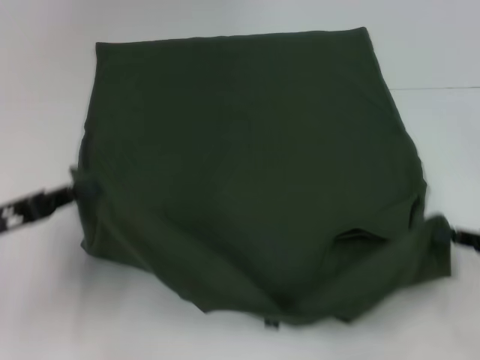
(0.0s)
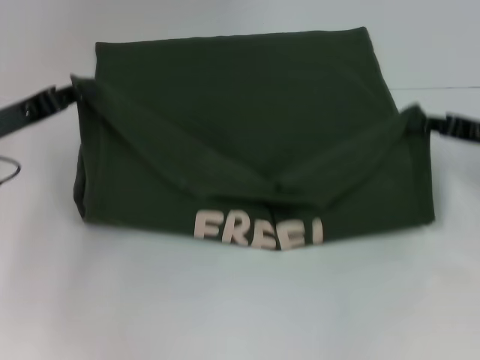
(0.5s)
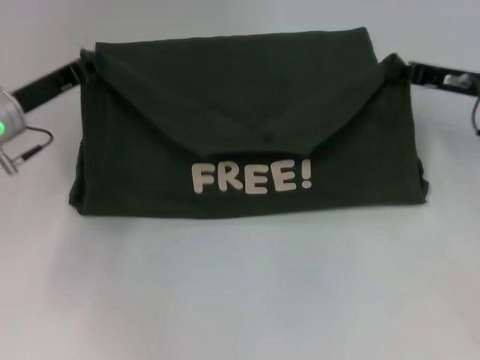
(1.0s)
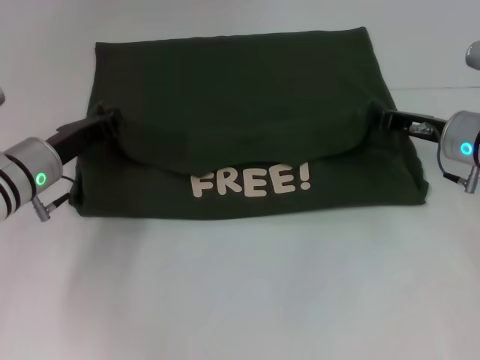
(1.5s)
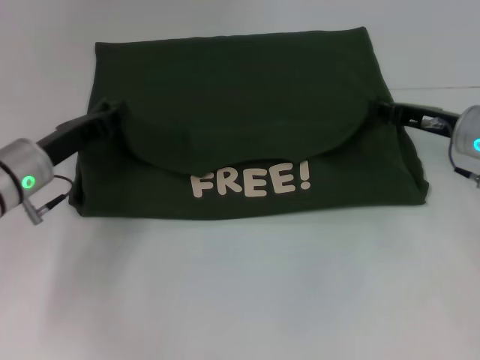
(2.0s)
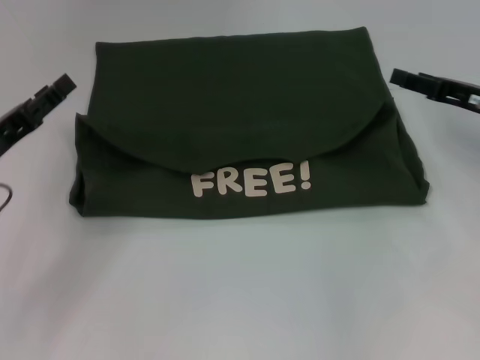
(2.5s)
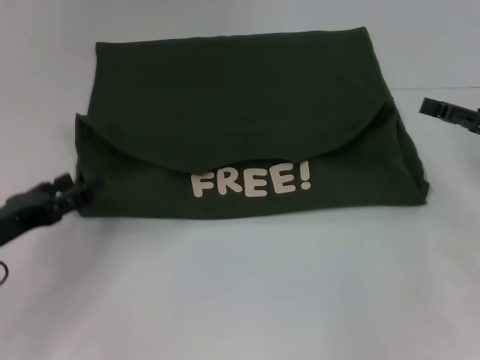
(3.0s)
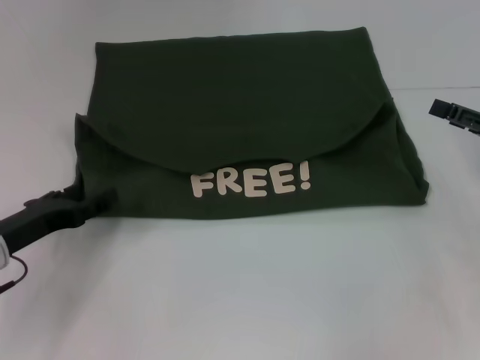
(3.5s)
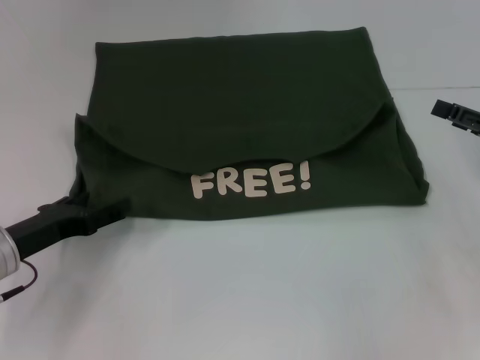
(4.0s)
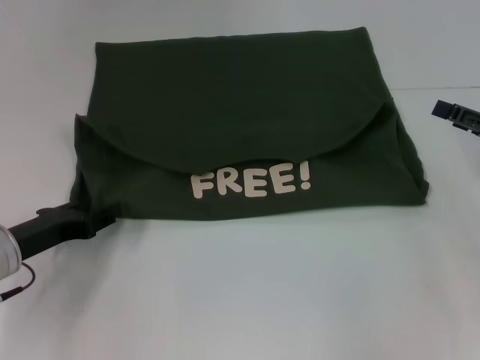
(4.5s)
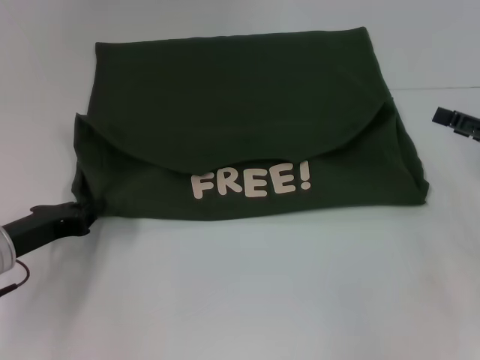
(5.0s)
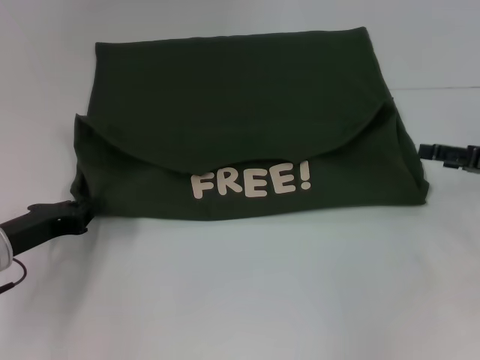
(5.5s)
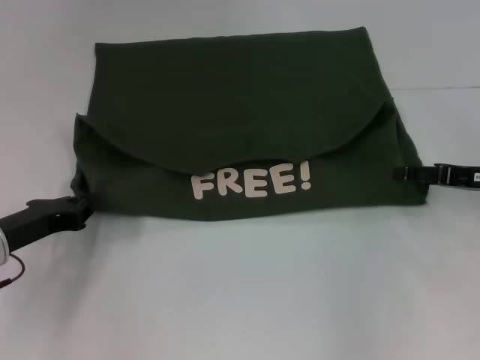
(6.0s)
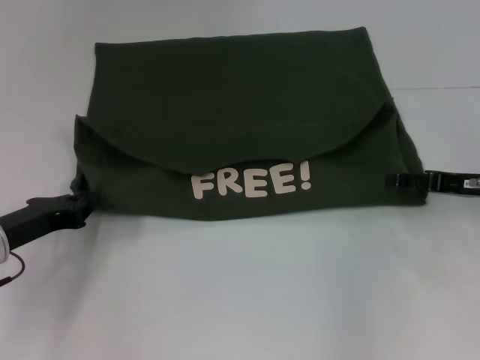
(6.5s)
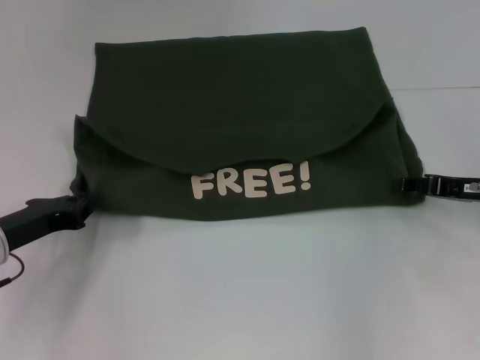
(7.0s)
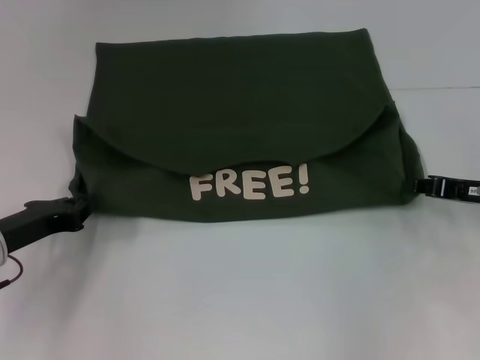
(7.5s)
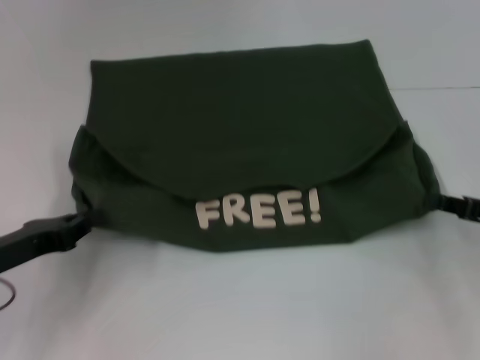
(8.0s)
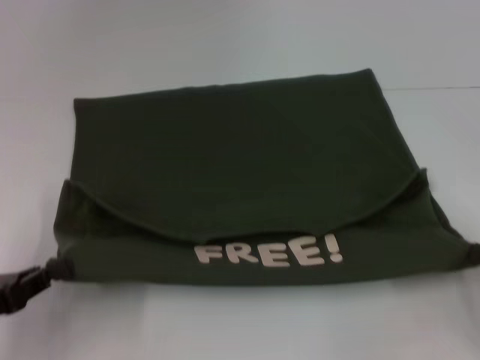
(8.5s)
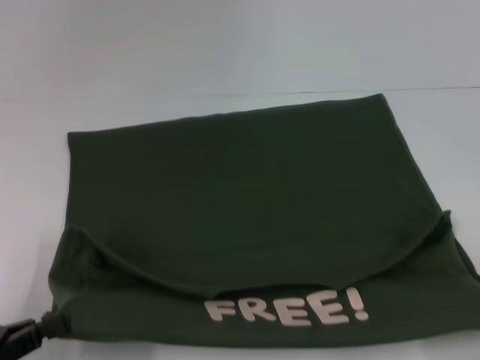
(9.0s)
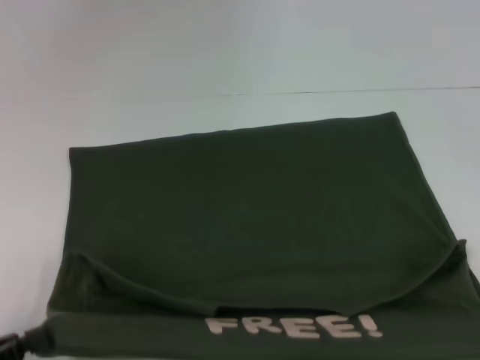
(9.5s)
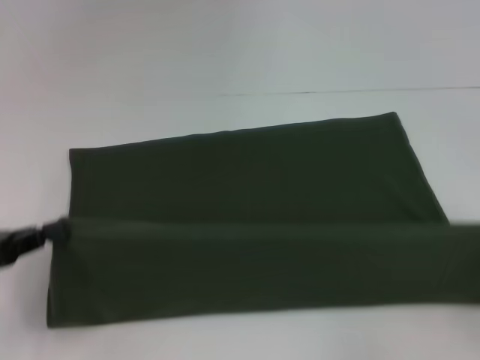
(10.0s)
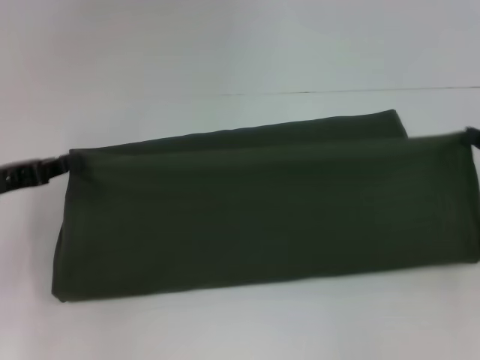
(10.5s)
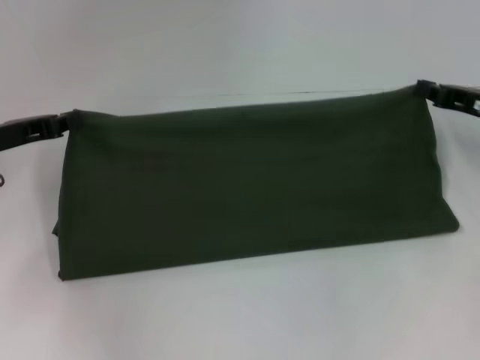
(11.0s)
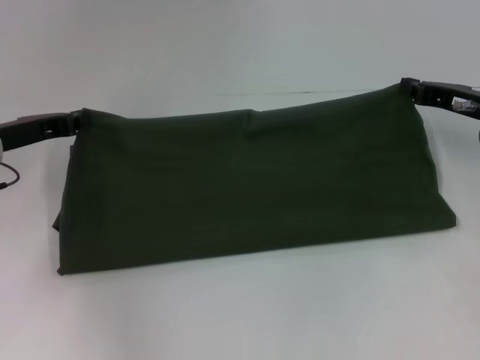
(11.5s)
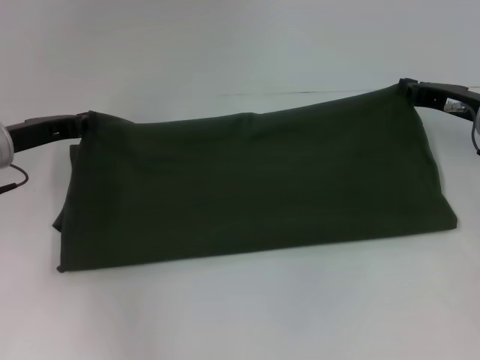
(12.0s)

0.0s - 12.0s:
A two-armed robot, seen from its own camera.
Step, 0.0s - 2.0s: Fold the clothes with your left hand.
Step, 0.0s - 2.0s: Fold the clothes with your right hand.
Step, 2.5s - 8.5s: Pull the clothes with your left hand.
Step, 2.5s - 8.5s: Pull the clothes with your right hand.
0.0s - 2.0s: The right gripper shifts some 20 cm forward and to the left. The left gripper is displaced forward and to the right by approximately 15 cm.
2.0s - 4.0s: The left gripper travels backward by some 5 cm, and opens. Meanwhile the right gripper heads to the right and backward, covering roughly 10 cm, and opens its fingers.
4.0s - 6.0s: The left gripper closes its fingers.
6.0s - 8.0s: The right gripper shifts about 5 cm backward, and closes its fingers.
8.0s - 10.0s: The left gripper heads to the left, covering roughly 5 cm, and reaches approximately 15 cm backward, then returns. The right gripper goes approximately 10 cm backward and to the right.
10.0s - 12.0s: The right gripper heads forward and to the left, covering approximately 25 cm; the left gripper goes some 15 cm forward and to the right.

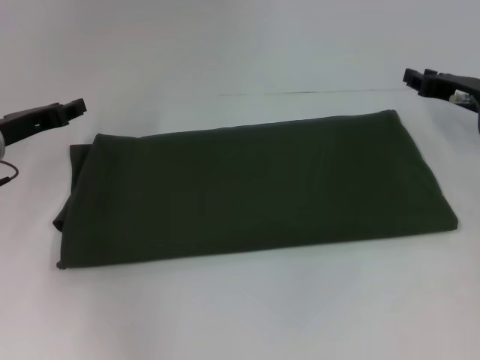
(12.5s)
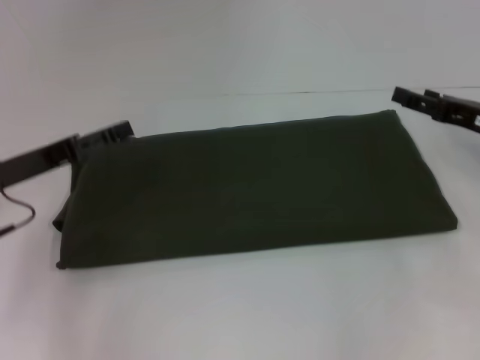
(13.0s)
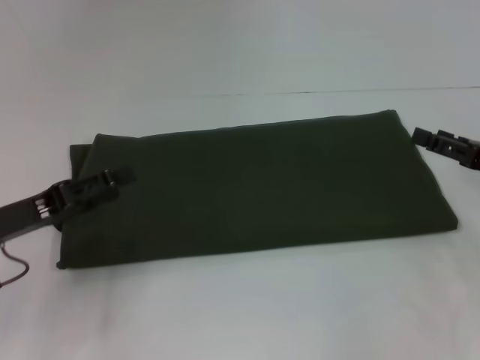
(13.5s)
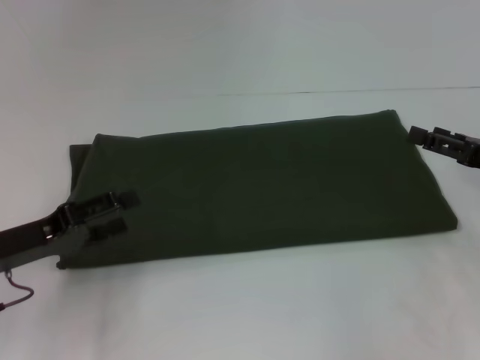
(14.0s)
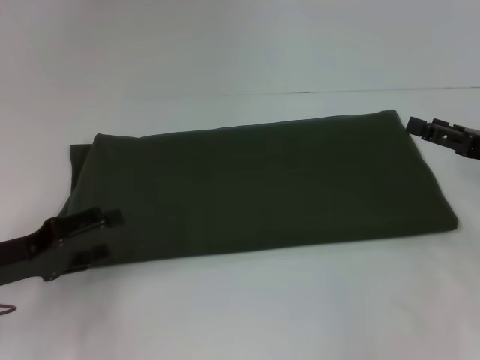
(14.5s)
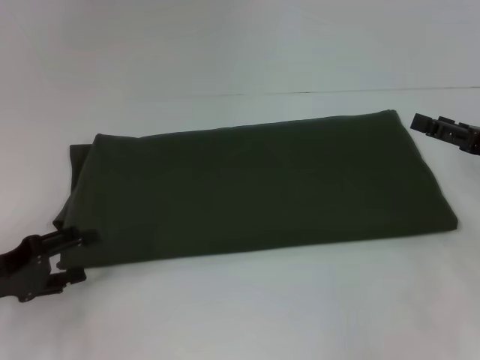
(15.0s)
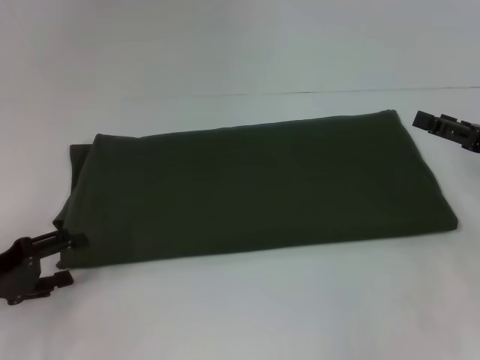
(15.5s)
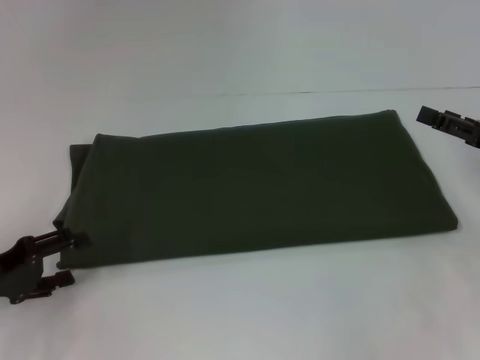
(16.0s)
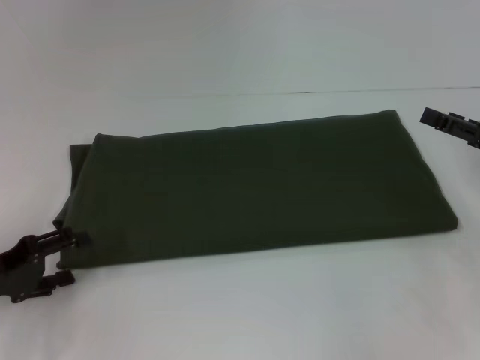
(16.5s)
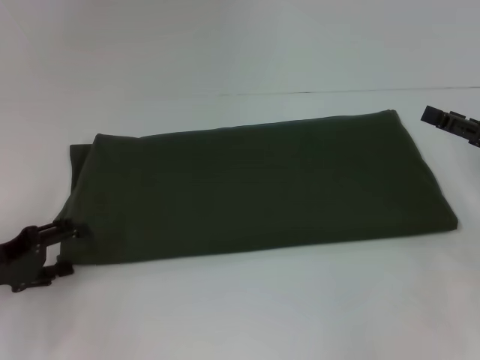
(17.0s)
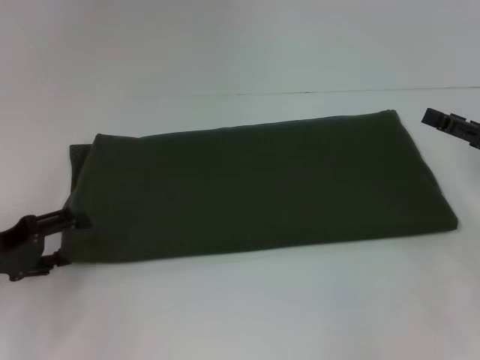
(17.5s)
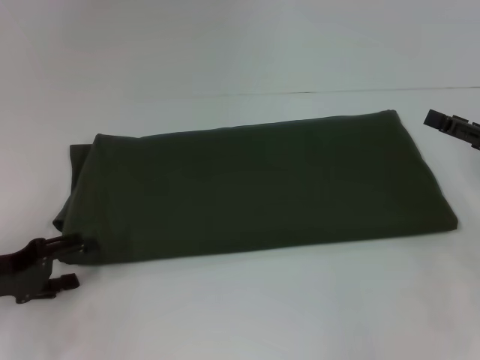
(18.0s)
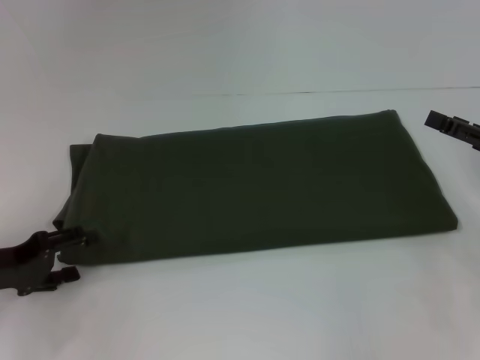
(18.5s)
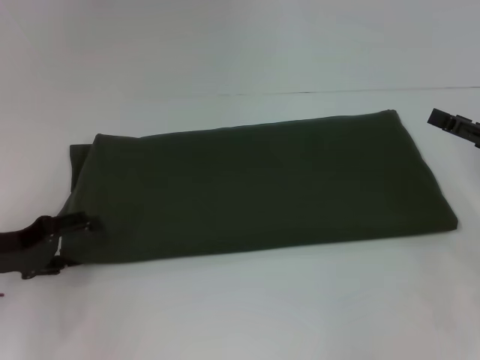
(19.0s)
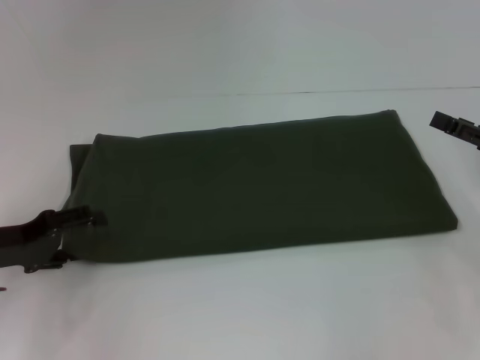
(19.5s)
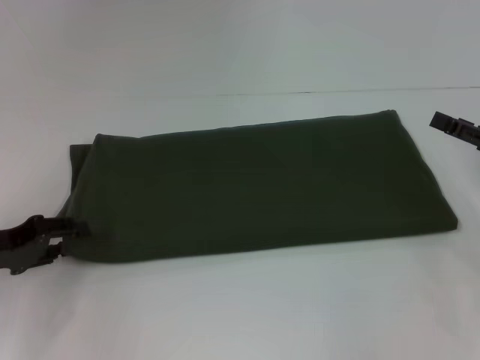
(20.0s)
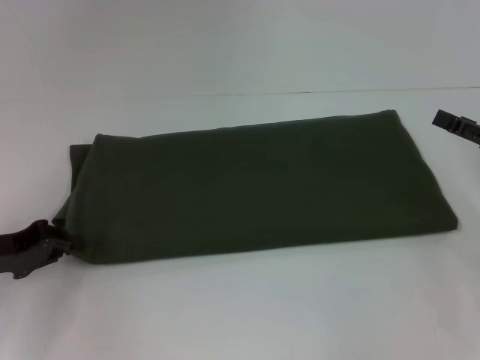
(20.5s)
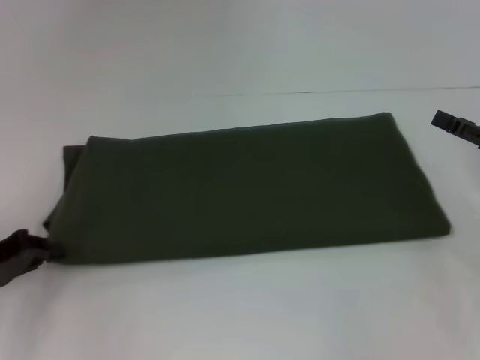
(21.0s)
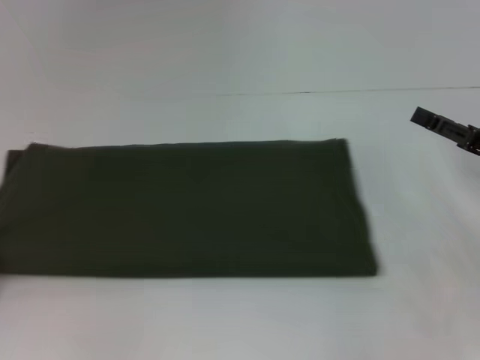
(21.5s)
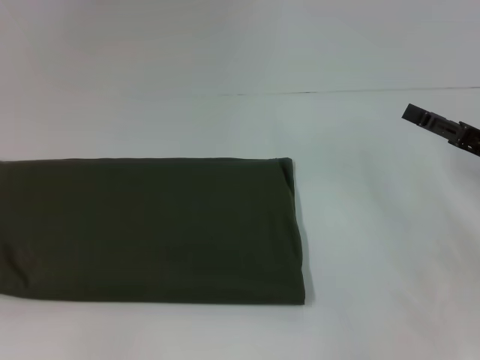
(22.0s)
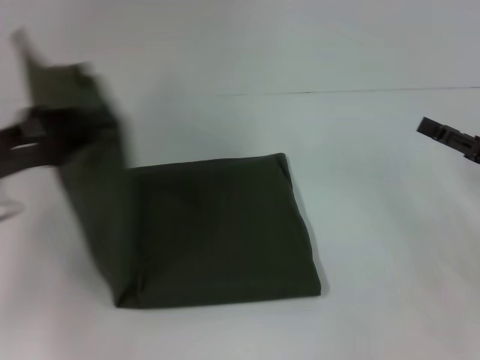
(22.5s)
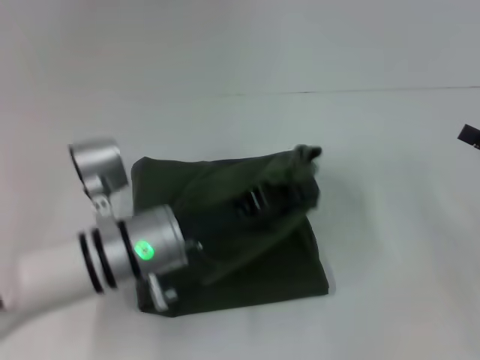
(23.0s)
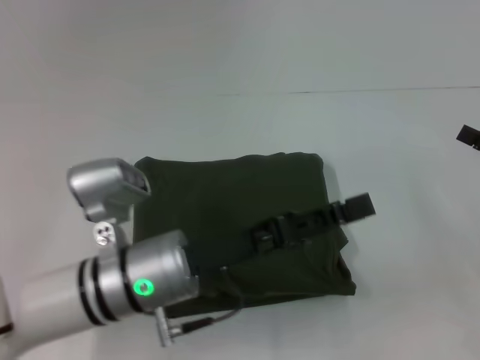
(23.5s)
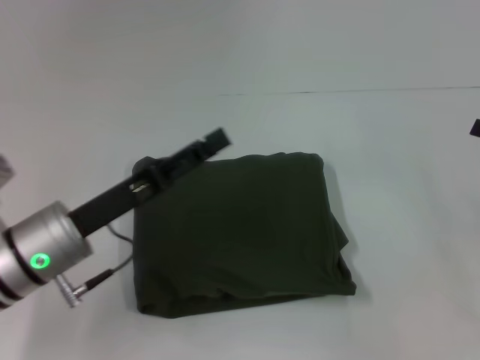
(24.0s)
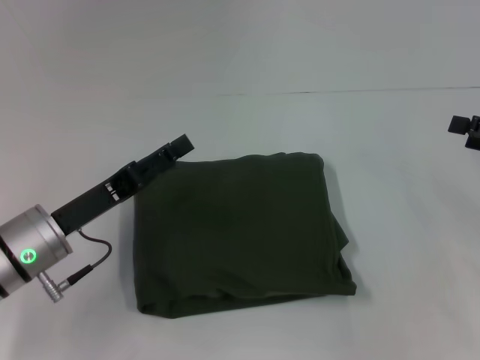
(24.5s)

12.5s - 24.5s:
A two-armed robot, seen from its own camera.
Step, 12.5s - 23.5s: Fold the clothes with your left hand.
12.5s - 14.5s: The two grippers go approximately 10 cm backward. The right gripper opens. Meanwhile the left gripper opens its fingers.
14.5s - 18.5s: There are only small adjustments of the grippers.
18.5s - 20.5s: The left gripper closes up.
20.5s - 22.5s: The left gripper goes about 10 cm upward, and reaches some 15 cm to the left, then returns.
22.5s - 24.5s: The right gripper shifts by approximately 5 cm; the left gripper travels downward and to the right by roughly 10 cm, and opens up.

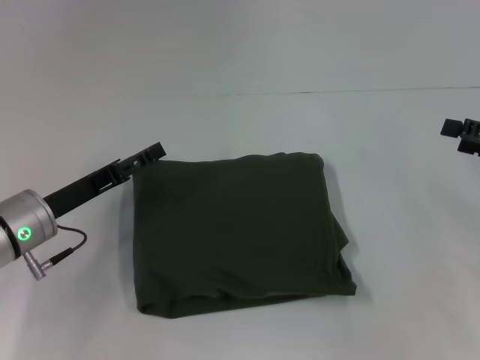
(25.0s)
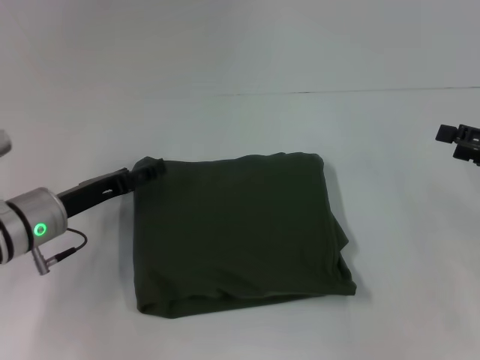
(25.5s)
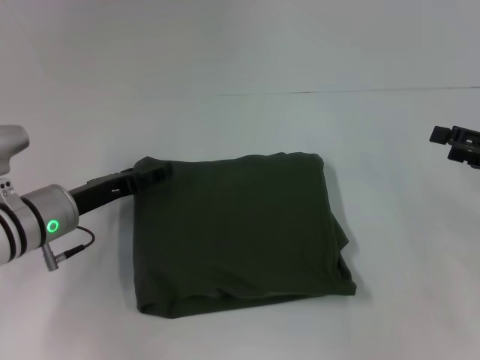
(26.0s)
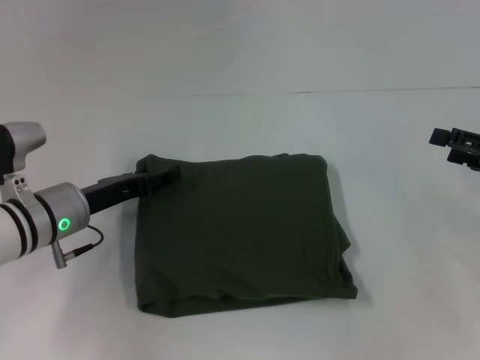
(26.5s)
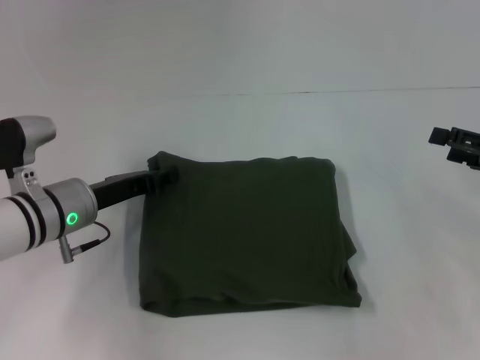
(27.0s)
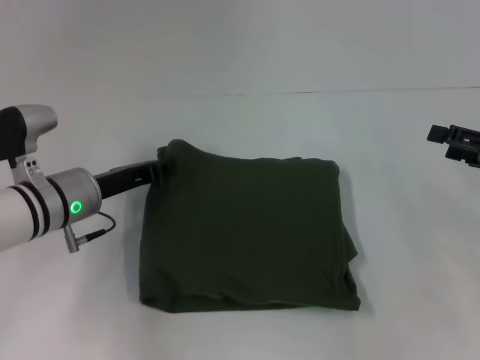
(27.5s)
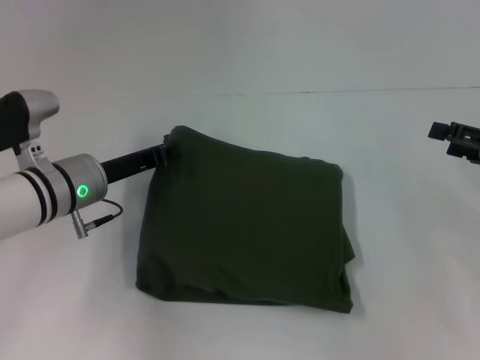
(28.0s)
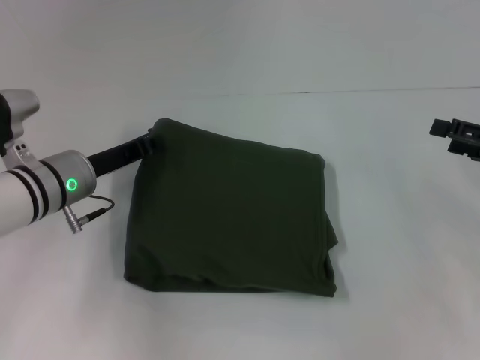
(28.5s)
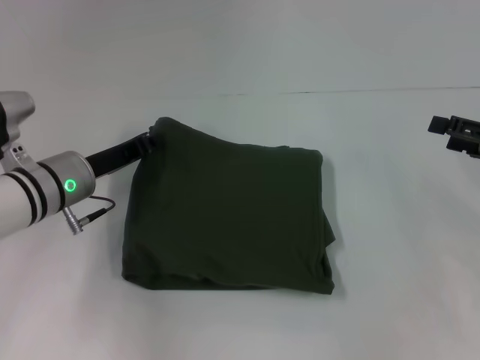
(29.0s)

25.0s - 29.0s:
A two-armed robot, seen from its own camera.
25.0s - 27.0s: The left gripper closes.
27.0s - 29.0s: The grippers make only small movements.
